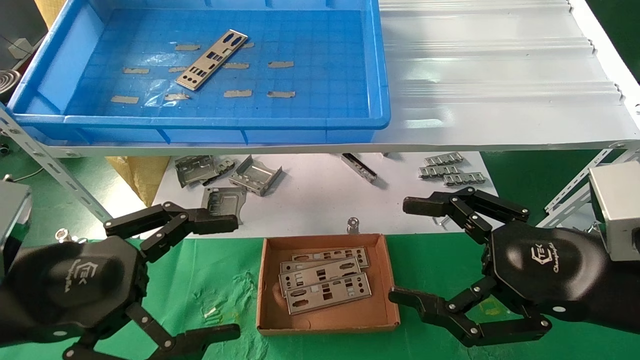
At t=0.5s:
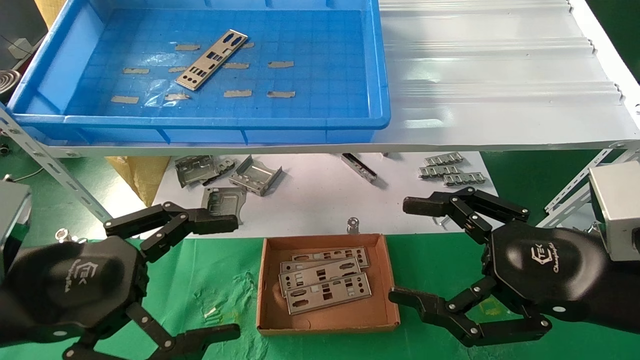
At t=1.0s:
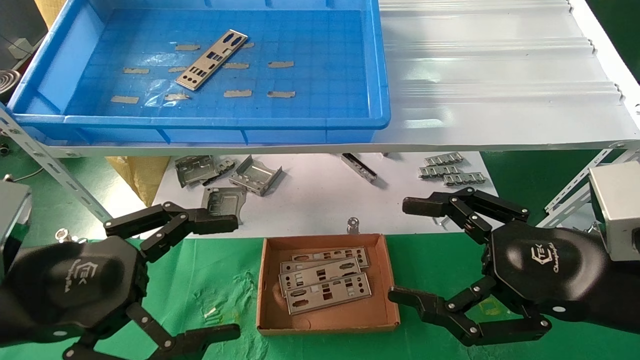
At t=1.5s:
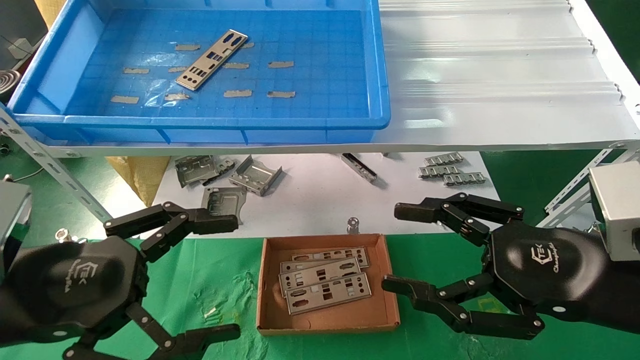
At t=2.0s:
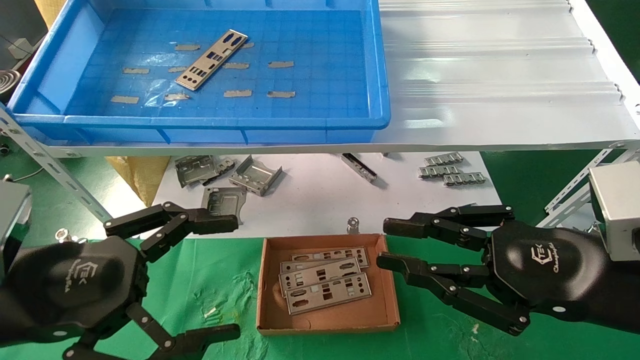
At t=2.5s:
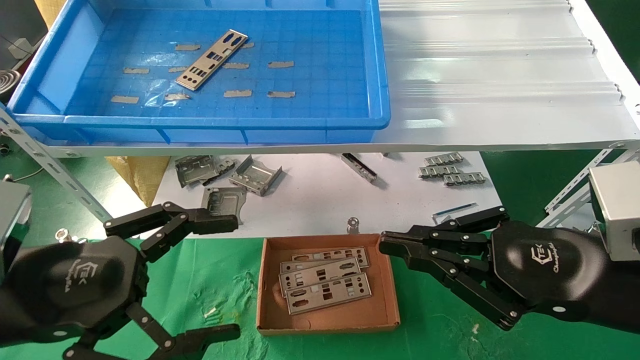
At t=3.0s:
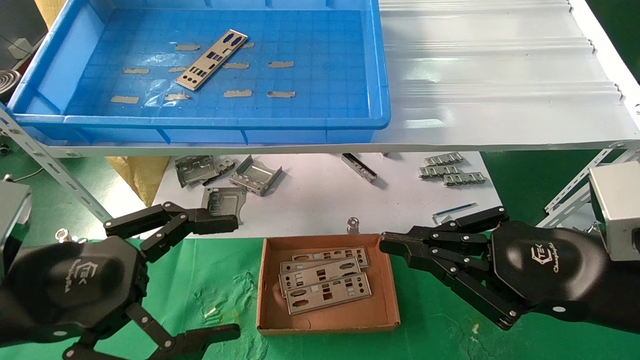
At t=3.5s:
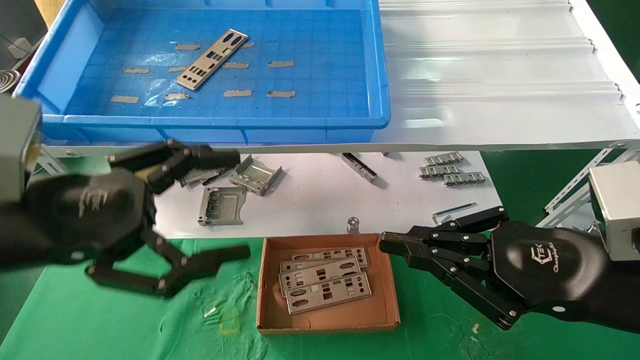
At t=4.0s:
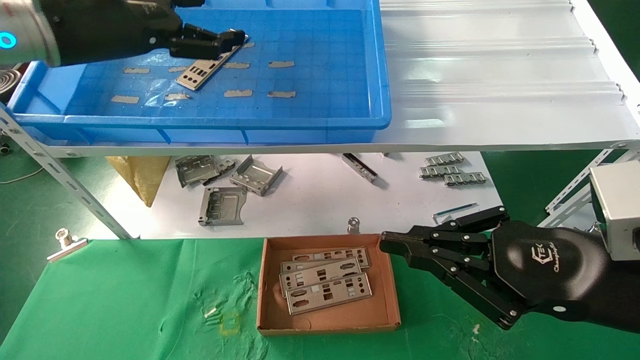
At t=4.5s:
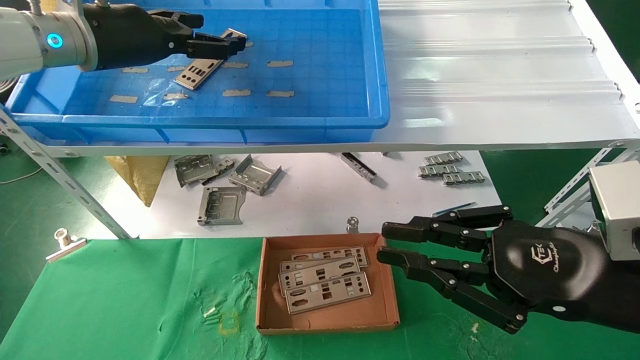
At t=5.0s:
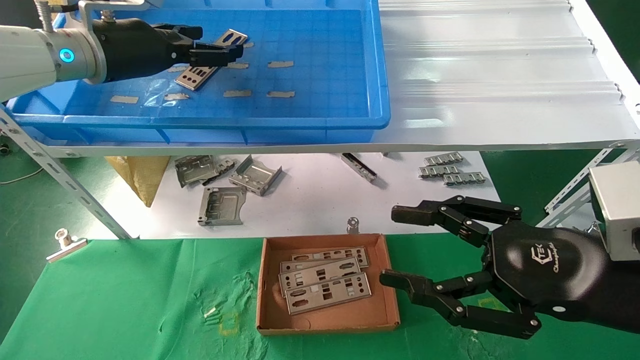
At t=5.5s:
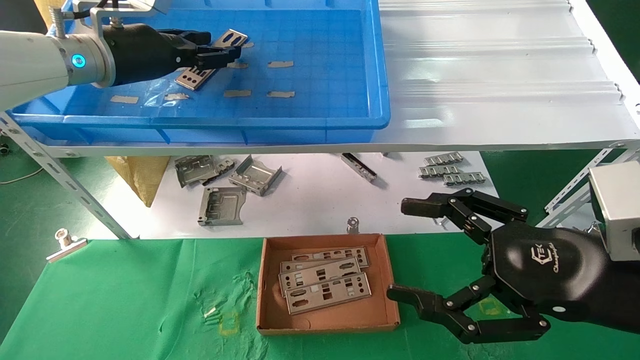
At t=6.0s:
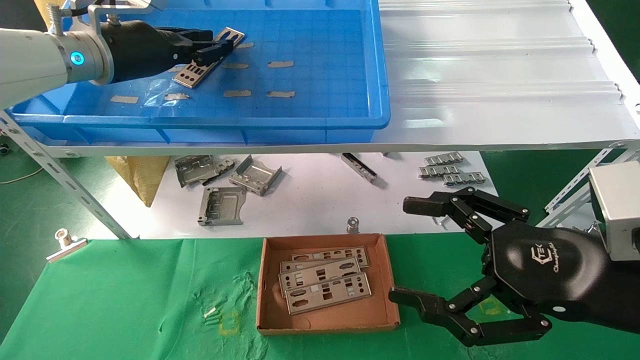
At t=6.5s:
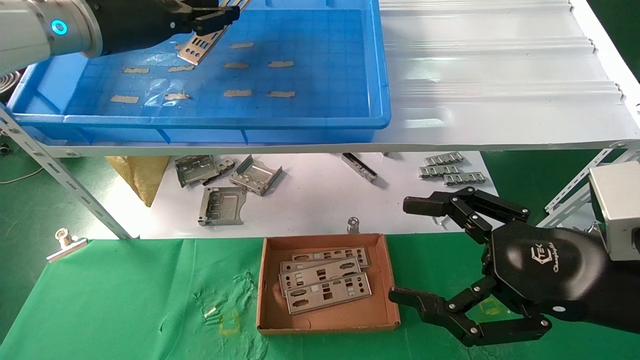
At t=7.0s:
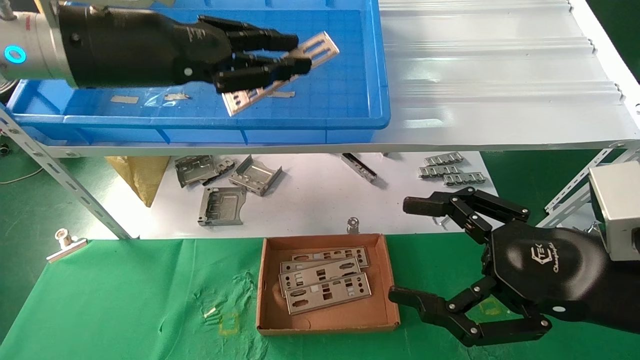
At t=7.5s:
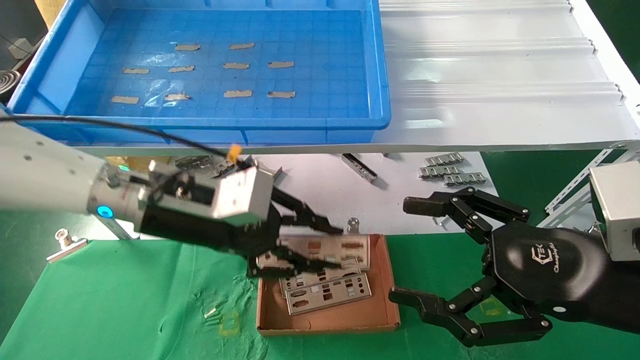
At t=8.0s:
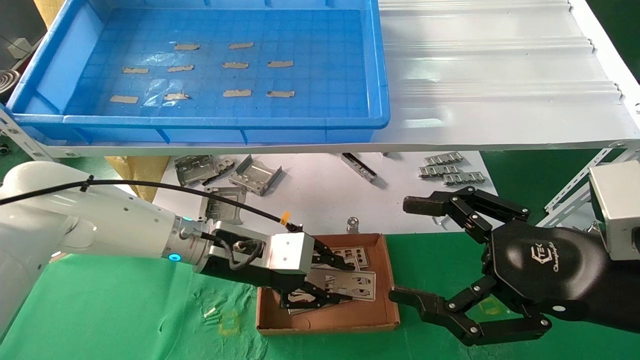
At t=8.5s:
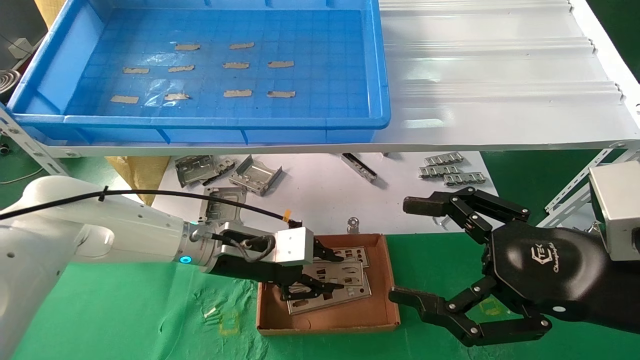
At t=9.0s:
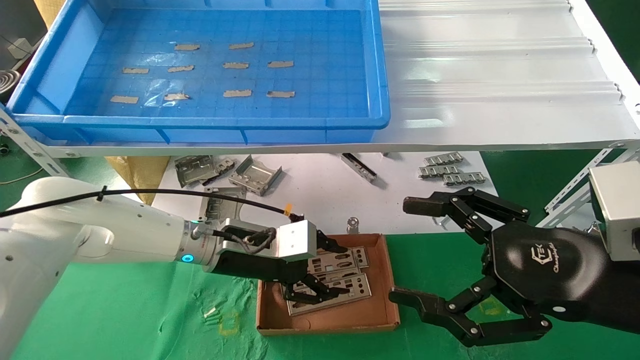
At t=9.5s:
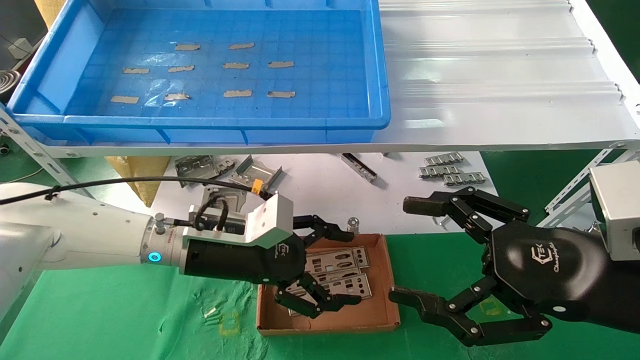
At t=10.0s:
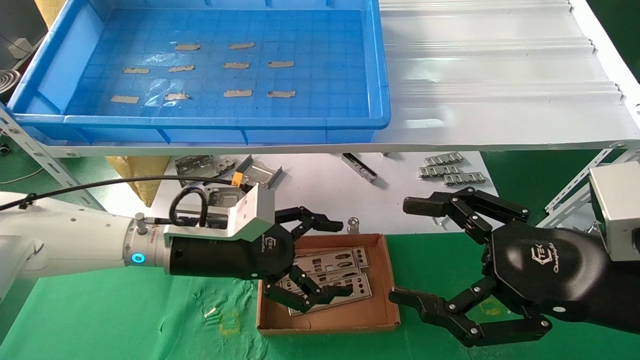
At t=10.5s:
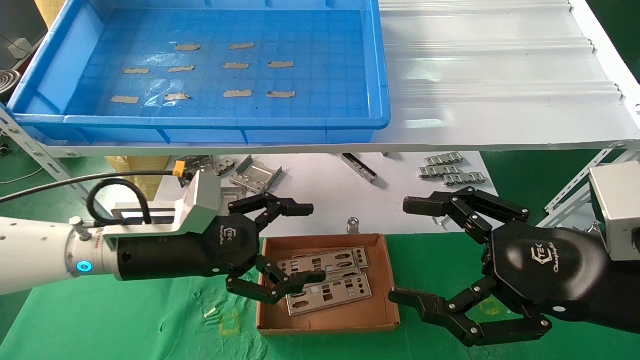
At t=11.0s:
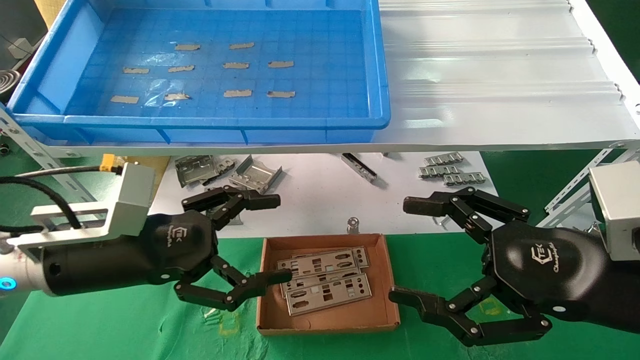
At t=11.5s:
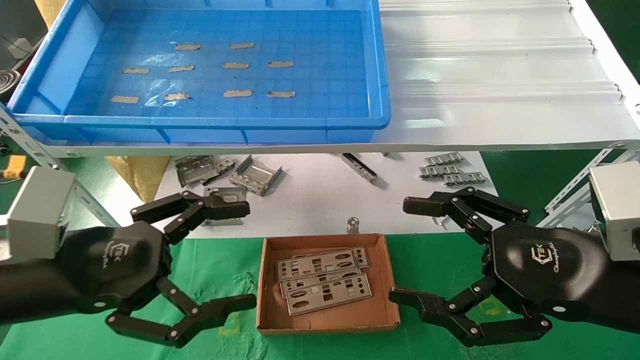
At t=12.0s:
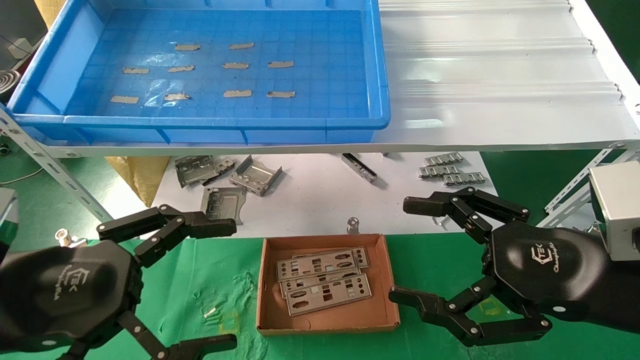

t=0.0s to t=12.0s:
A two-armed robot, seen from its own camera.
Task of the whole recording: pick up the parts on the tray and put them in the cardboard box.
Step, t=4.0s to t=6.0s: Pick up the IO bracket from the container box.
Step, t=6.5s to t=9.0s: Place the IO bracket into the ingredient slot.
t=0.0s to t=2.0s: The right gripper closes up.
t=2.0s to t=4.0s: The left gripper is displaced upward and forward by roughly 25 cm, while the right gripper closes its fingers.
t=4.0s to t=6.0s: The right gripper opens; the left gripper heads forward, covering about 5 cm, and closes.
t=6.0s to t=8.0s: The left gripper shifts about 30 cm downward and to the right.
t=8.0s to t=10.0s: The left gripper opens up.
t=10.0s to t=12.0s: The left gripper moves backward and to the left, roughly 20 cm.

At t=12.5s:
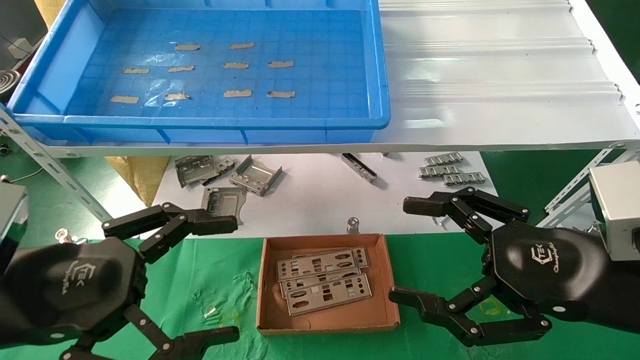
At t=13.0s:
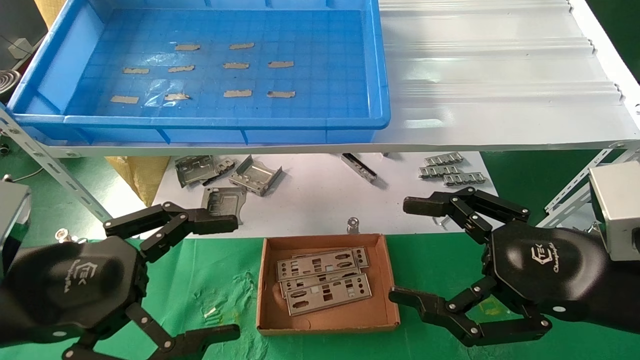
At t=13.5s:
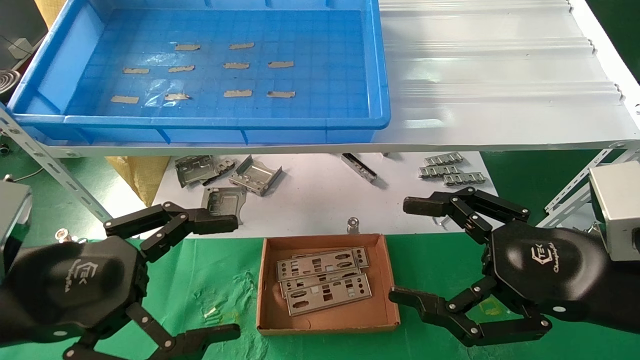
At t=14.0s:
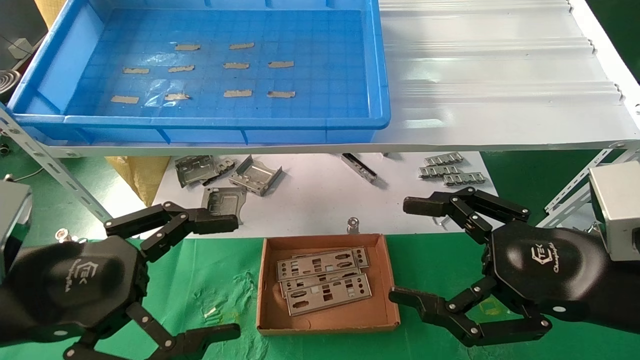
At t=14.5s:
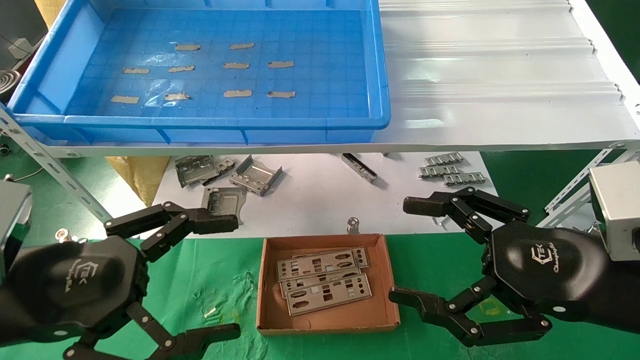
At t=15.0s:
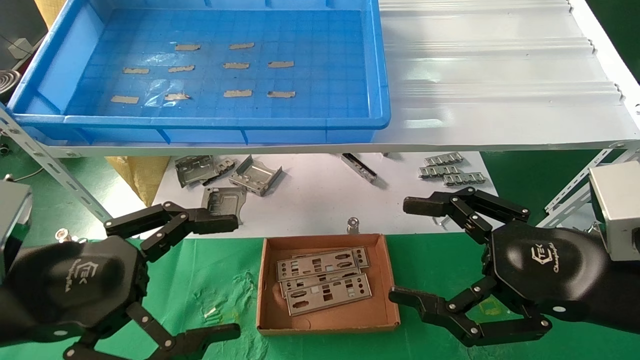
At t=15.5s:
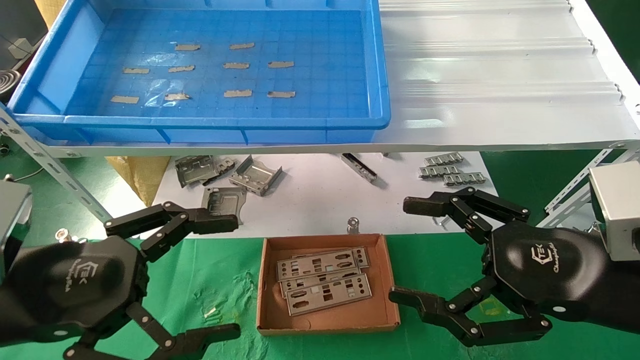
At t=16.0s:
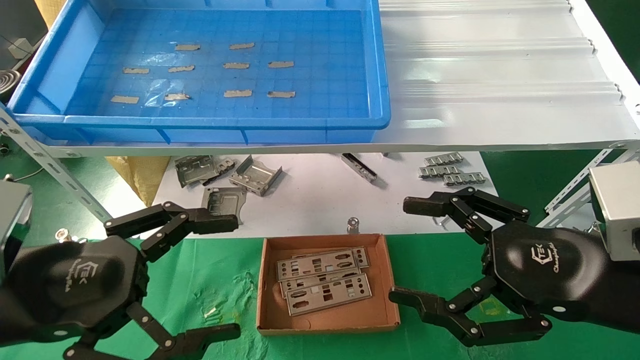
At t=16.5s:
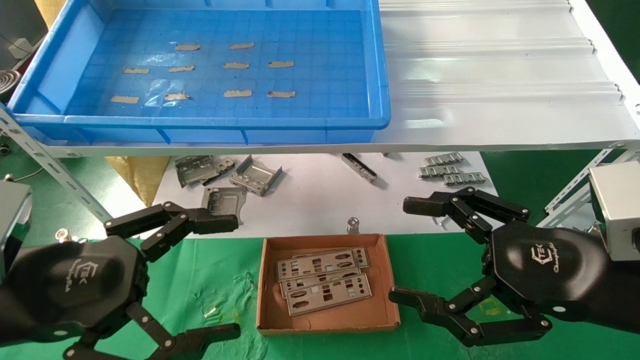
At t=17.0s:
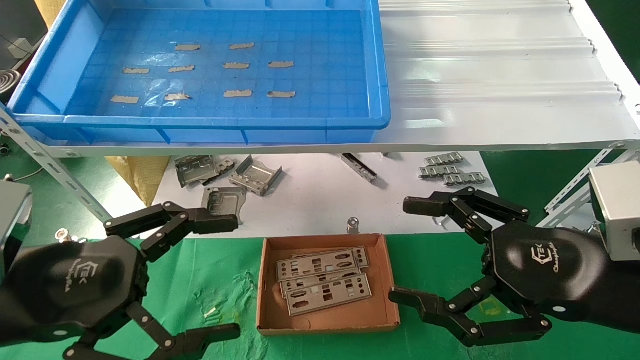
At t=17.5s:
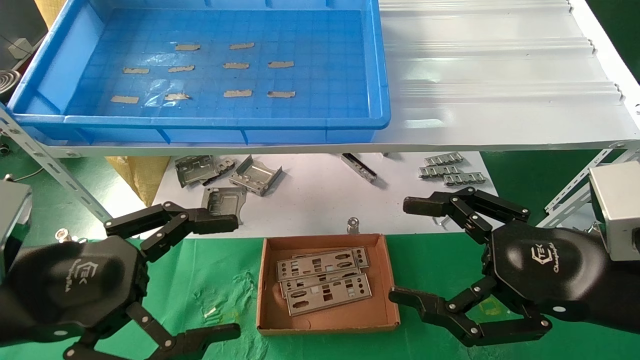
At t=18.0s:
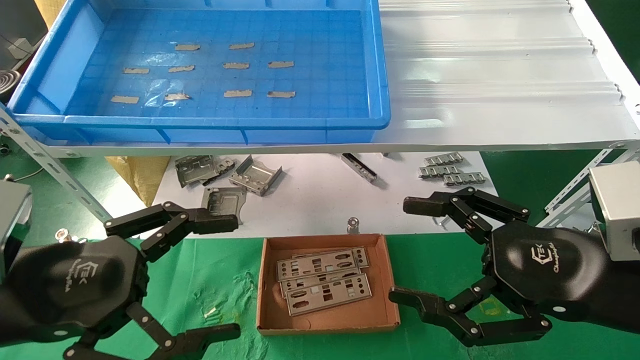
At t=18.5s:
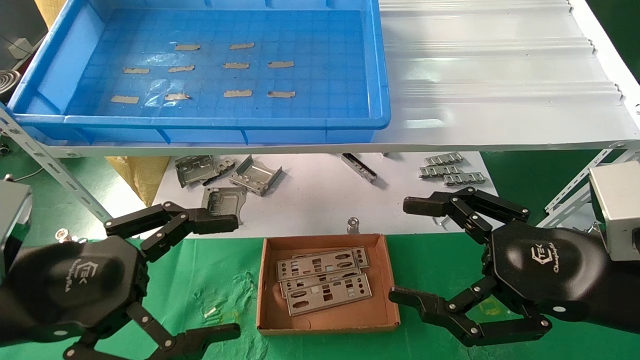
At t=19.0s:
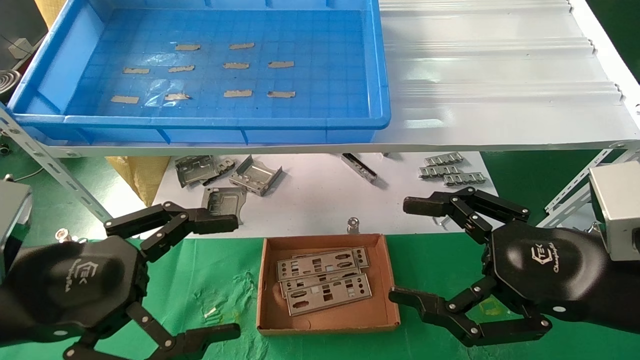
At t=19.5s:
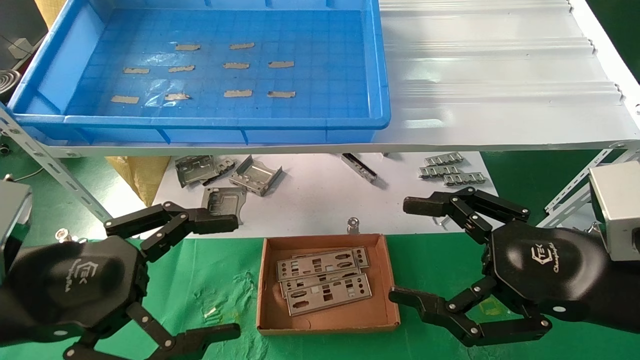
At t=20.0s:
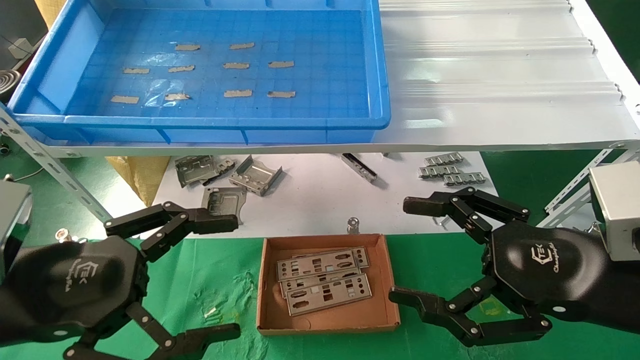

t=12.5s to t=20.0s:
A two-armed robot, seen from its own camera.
Task of the whole recording: pick up the parts on the tray and put them in the cardboard box.
t=12.5s to t=20.0s: Both grippers stay about where they are.
